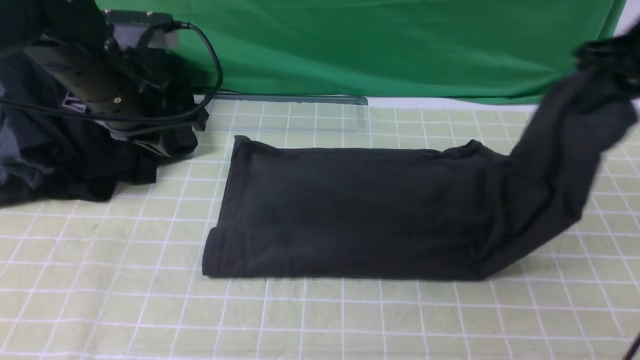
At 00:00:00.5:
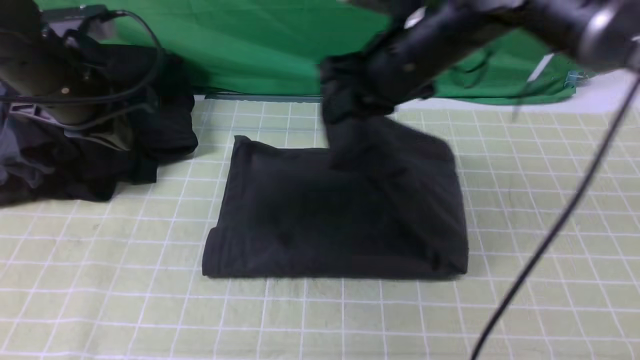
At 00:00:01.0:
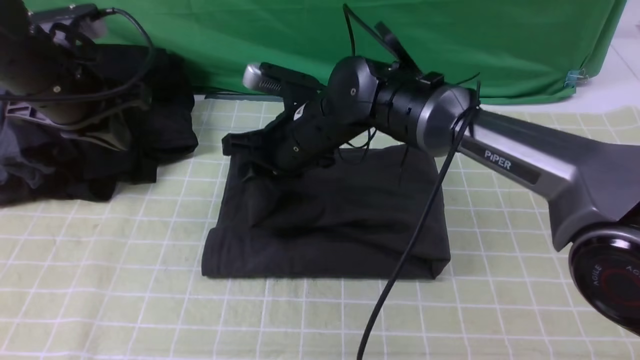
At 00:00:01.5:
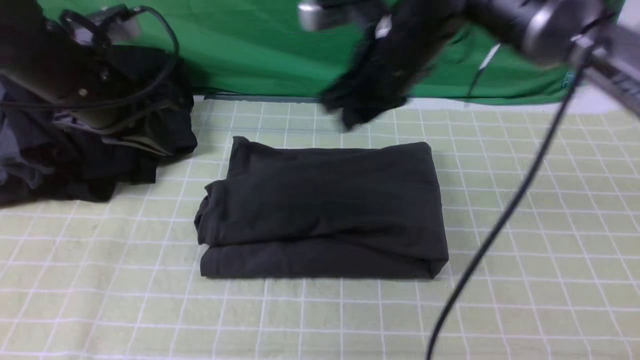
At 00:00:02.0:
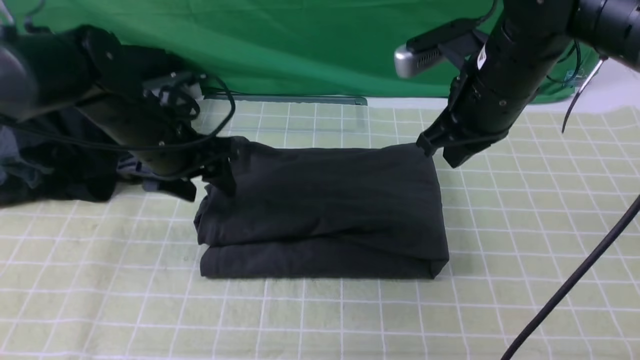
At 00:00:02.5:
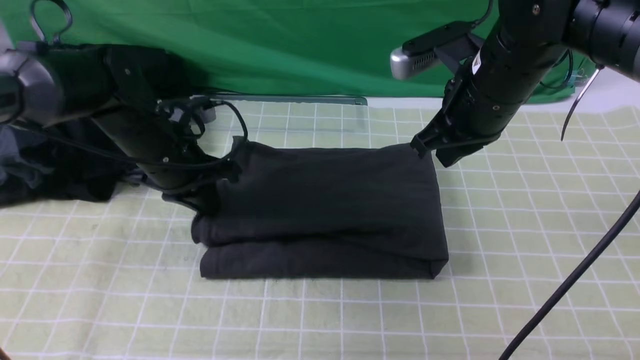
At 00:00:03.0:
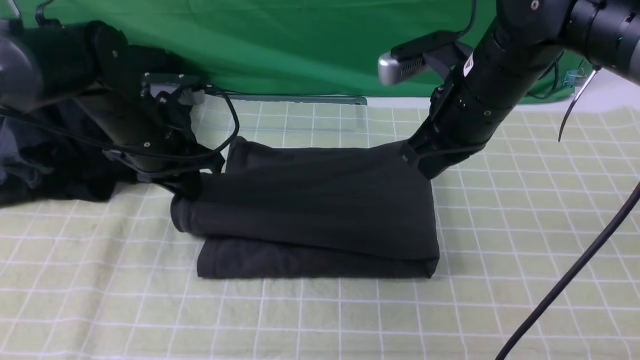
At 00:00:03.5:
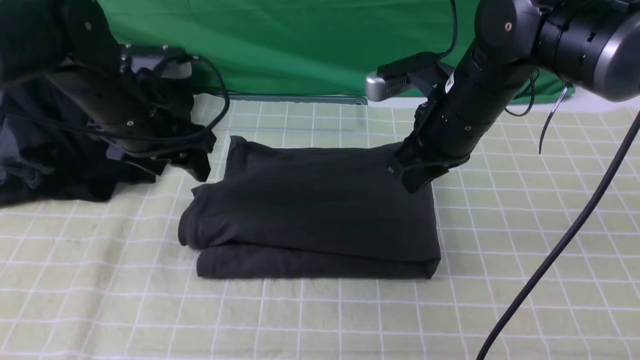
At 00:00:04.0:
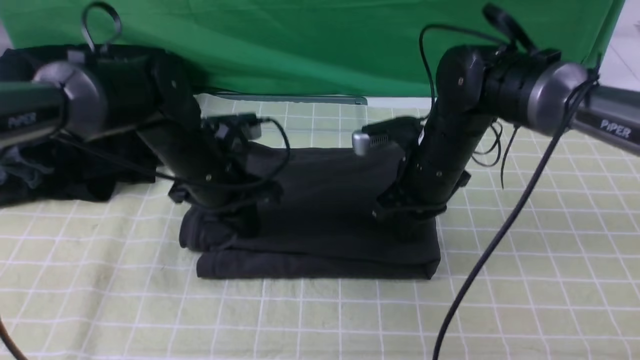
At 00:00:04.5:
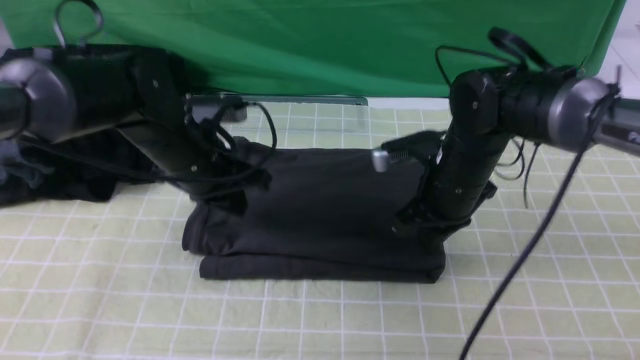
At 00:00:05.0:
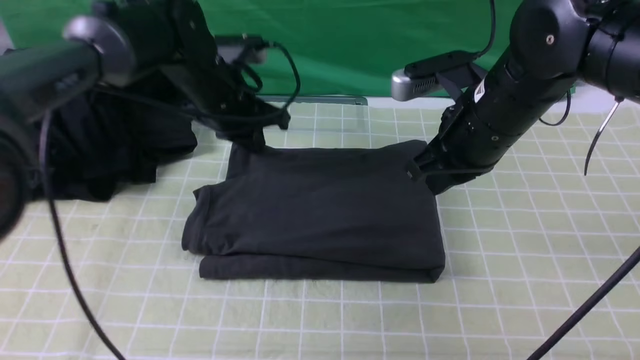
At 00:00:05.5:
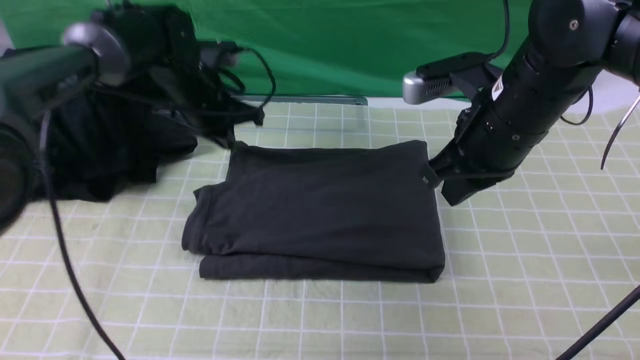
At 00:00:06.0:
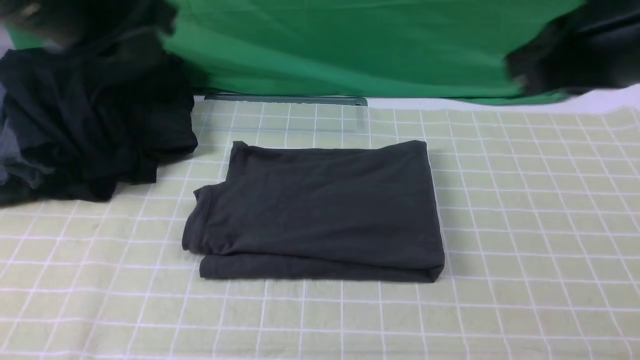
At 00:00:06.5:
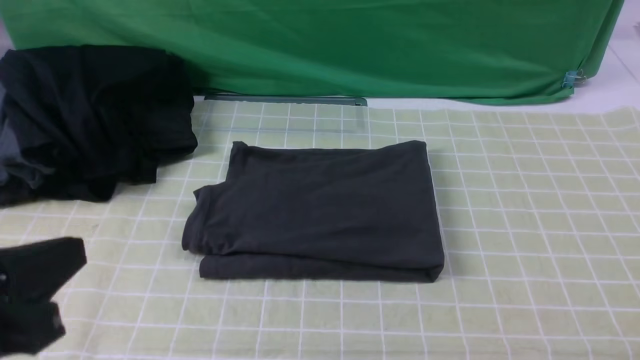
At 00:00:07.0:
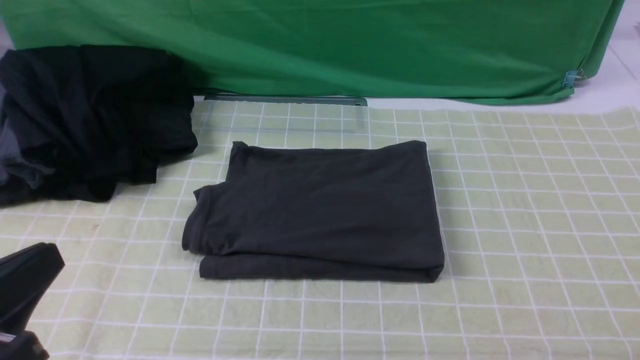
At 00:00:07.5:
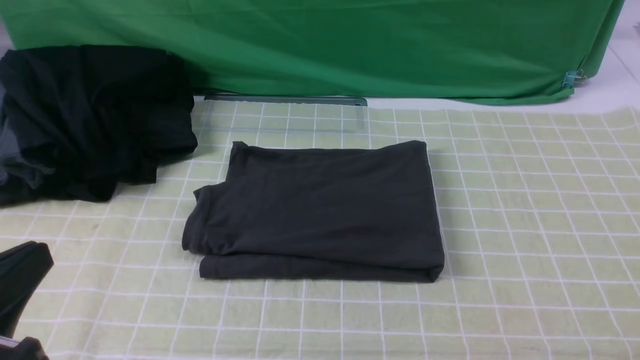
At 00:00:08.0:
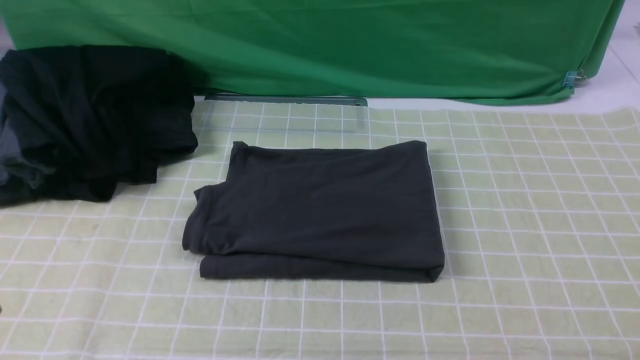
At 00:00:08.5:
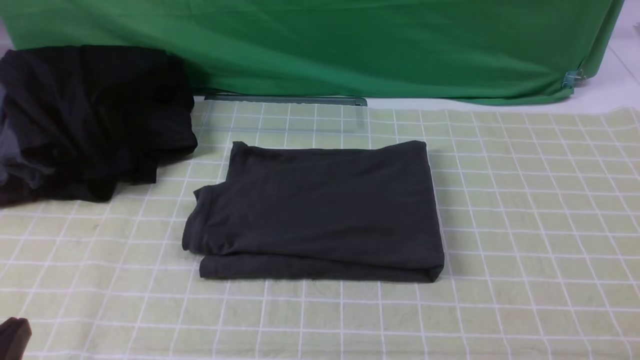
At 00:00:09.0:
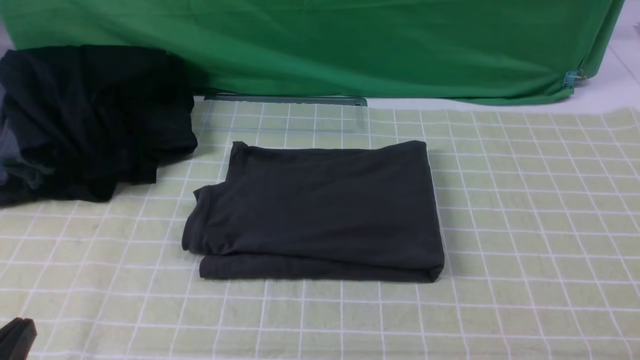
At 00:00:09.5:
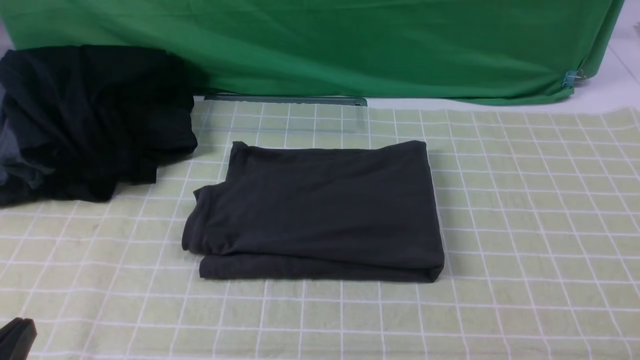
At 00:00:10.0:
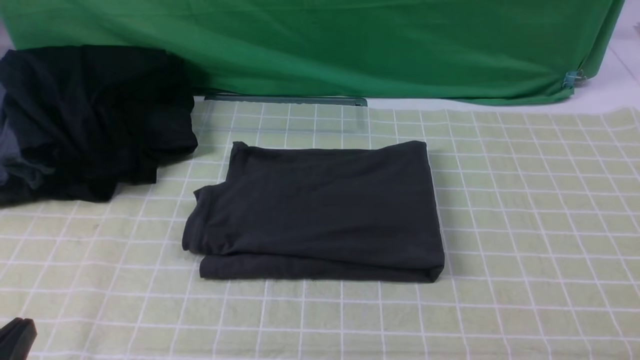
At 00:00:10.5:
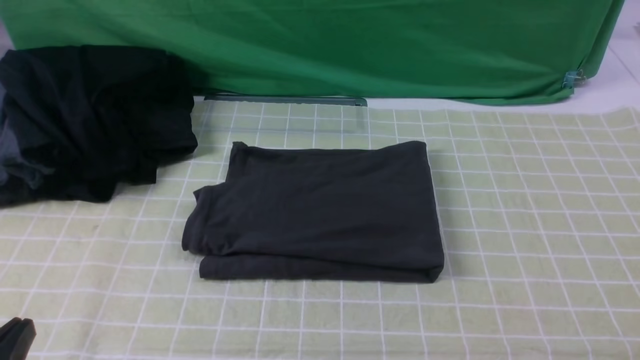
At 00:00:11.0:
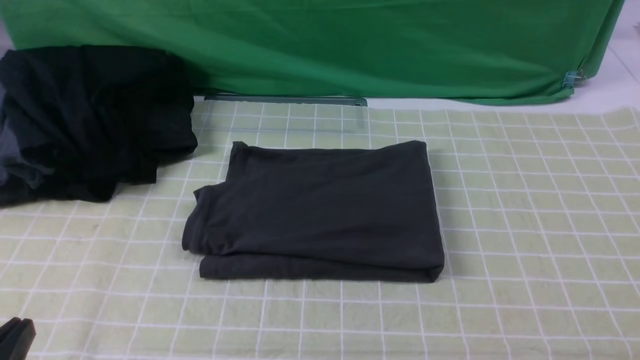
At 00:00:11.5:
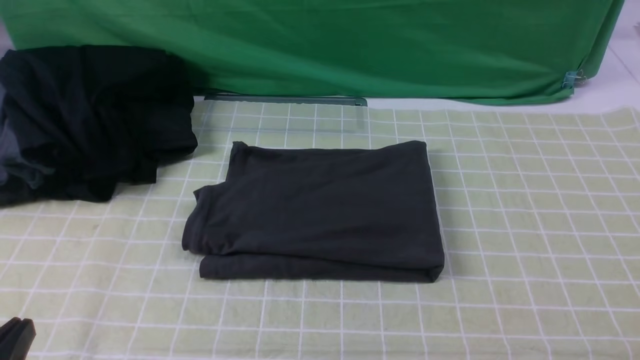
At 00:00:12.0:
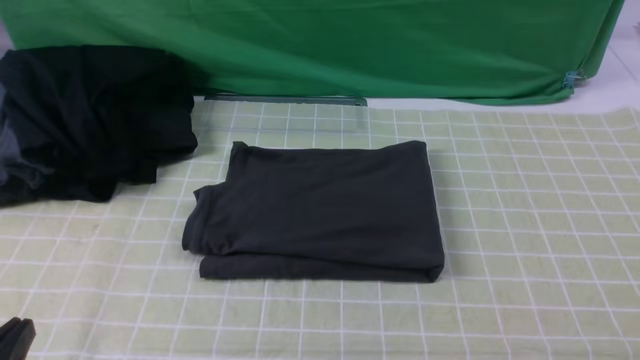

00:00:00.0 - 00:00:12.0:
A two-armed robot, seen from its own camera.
00:00:00.0 - 00:00:02.0: The left gripper is displaced downward by some 10 cm, and opens up. Meanwhile the right gripper is displaced to the left by about 15 cm, and opens, then closes once more.
00:00:02.0 - 00:00:04.0: The left gripper shifts by roughly 5 cm, and closes up, while the right gripper moves downward, some 10 cm.
00:00:04.0 - 00:00:06.0: The right gripper moves upward, backward and to the right, about 30 cm, while the left gripper shifts about 25 cm upward and backward.
00:00:06.0 - 00:00:08.0: The left gripper moves backward and downward, about 30 cm. The right gripper heads backward, to the right and downward, covering some 20 cm.

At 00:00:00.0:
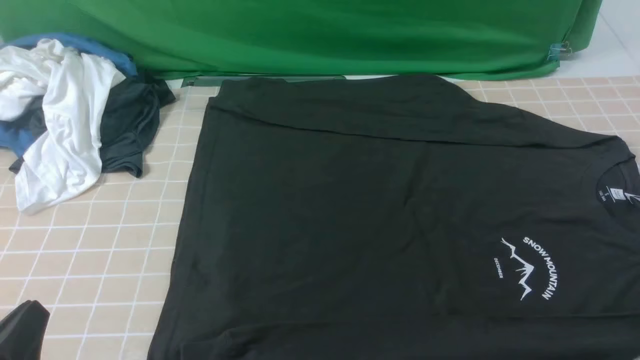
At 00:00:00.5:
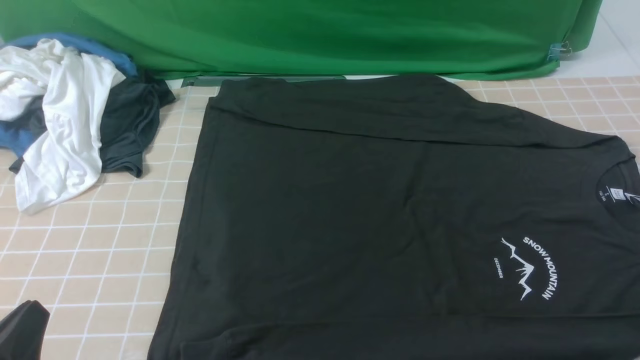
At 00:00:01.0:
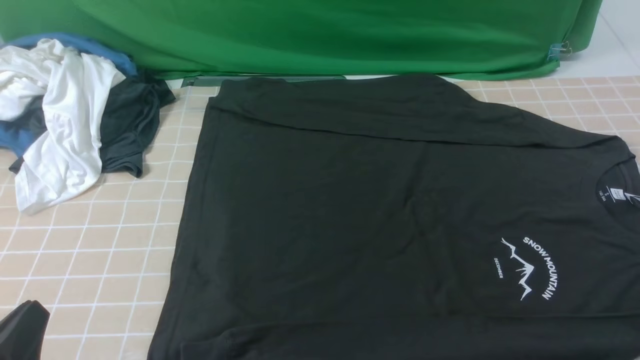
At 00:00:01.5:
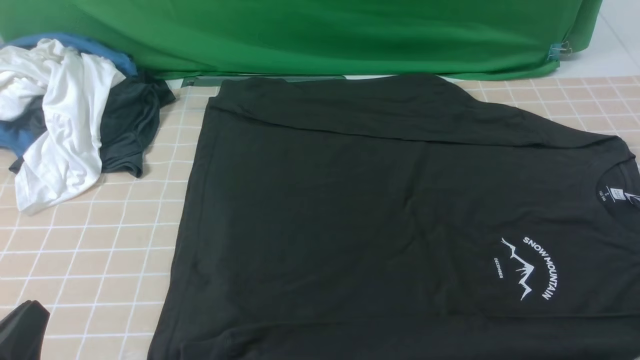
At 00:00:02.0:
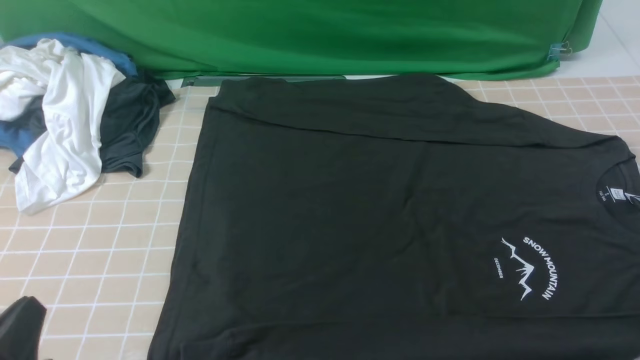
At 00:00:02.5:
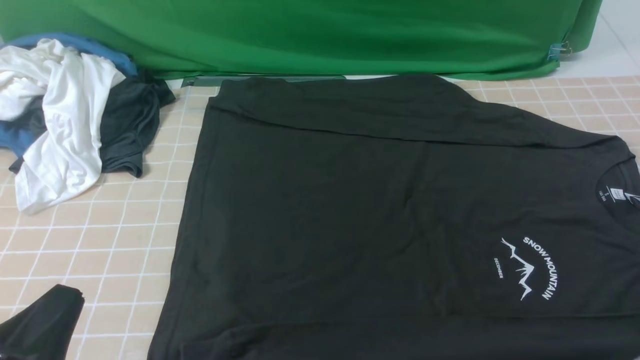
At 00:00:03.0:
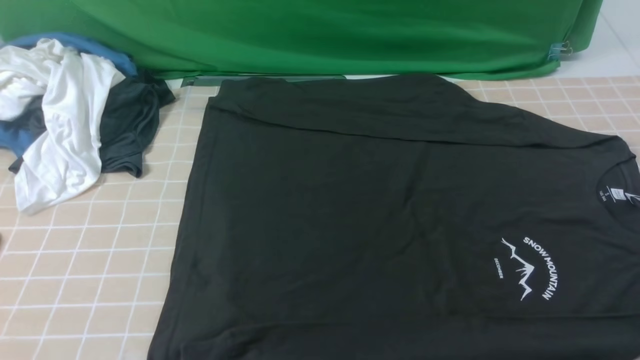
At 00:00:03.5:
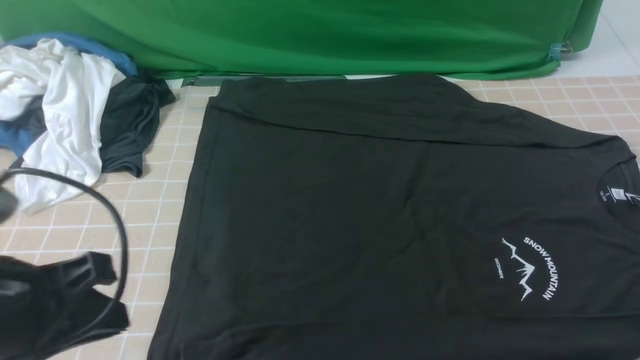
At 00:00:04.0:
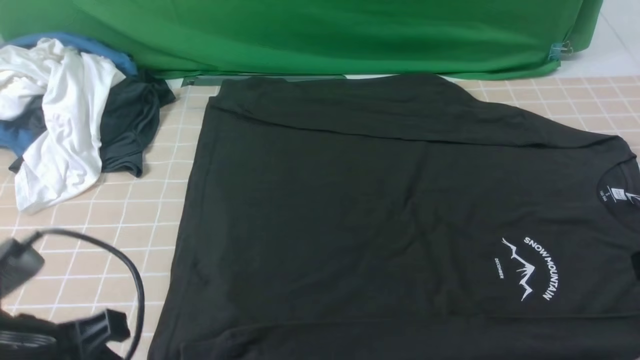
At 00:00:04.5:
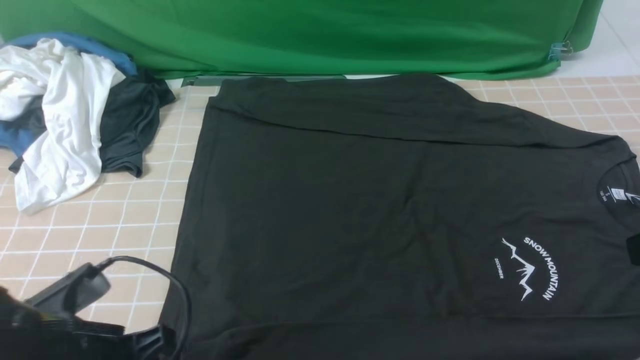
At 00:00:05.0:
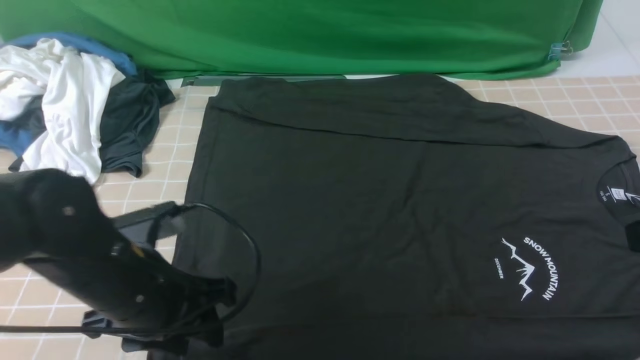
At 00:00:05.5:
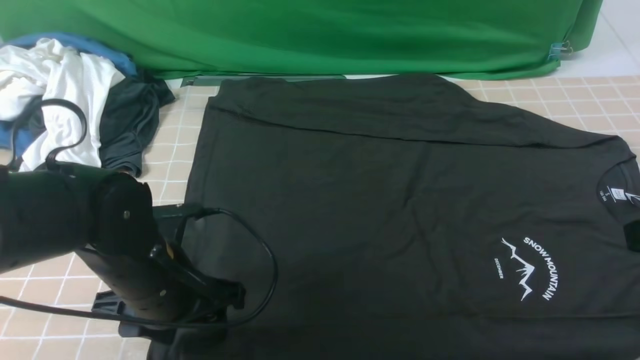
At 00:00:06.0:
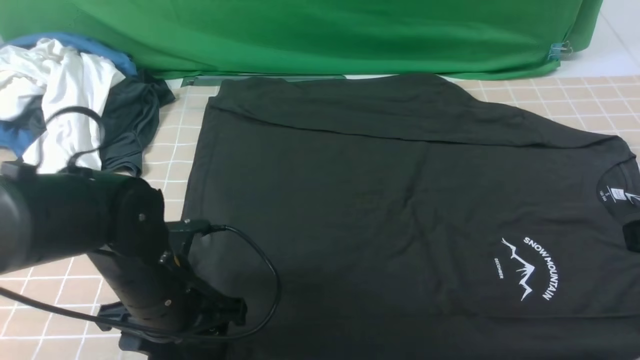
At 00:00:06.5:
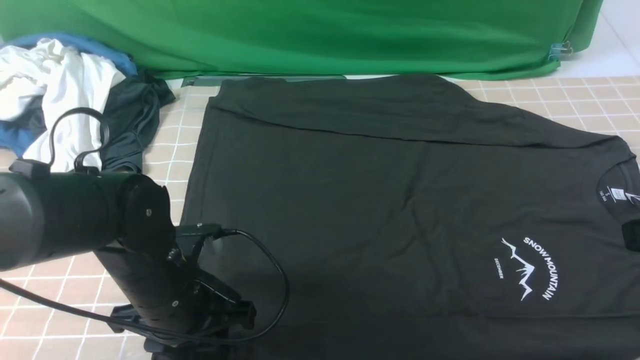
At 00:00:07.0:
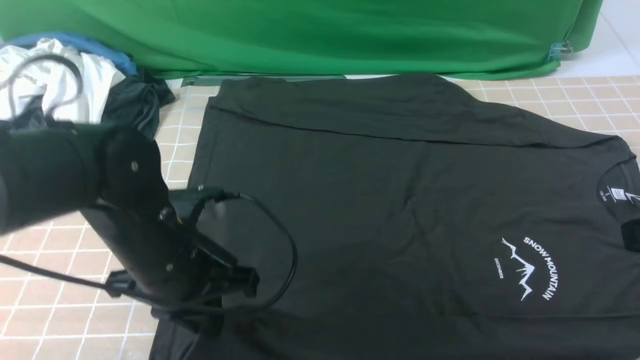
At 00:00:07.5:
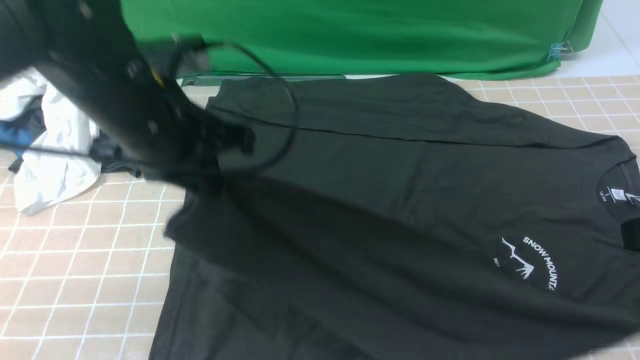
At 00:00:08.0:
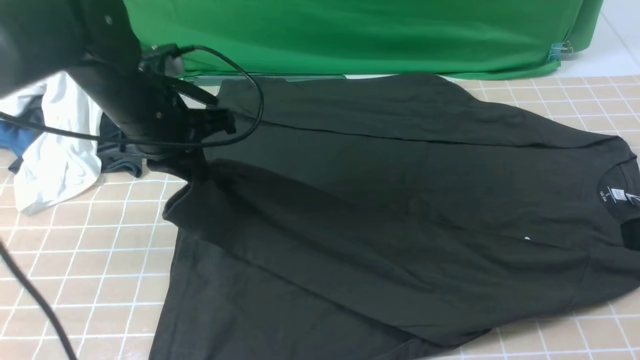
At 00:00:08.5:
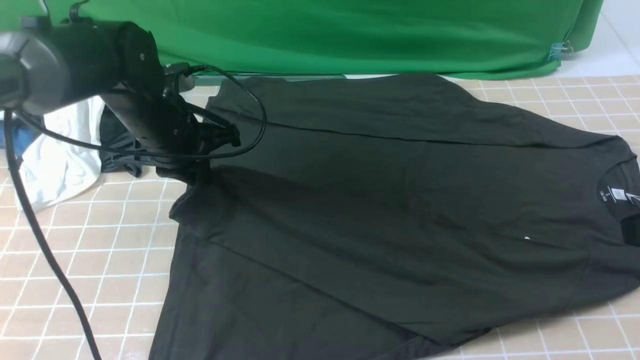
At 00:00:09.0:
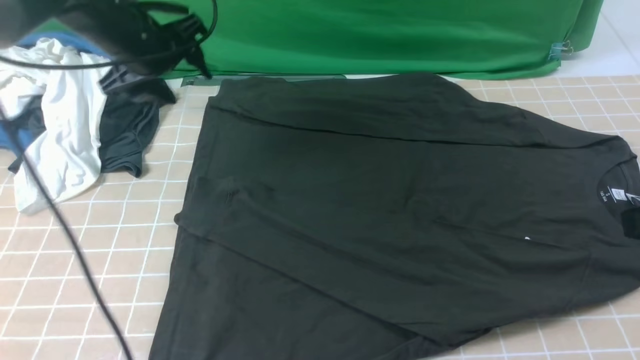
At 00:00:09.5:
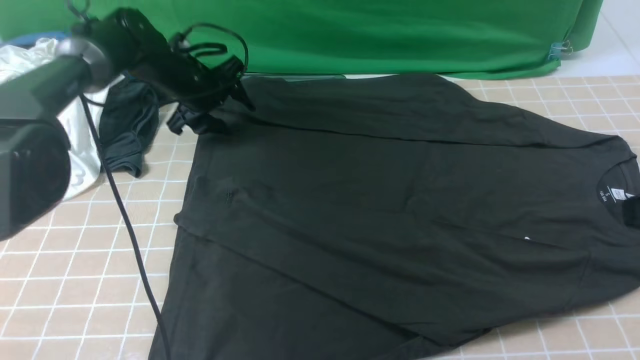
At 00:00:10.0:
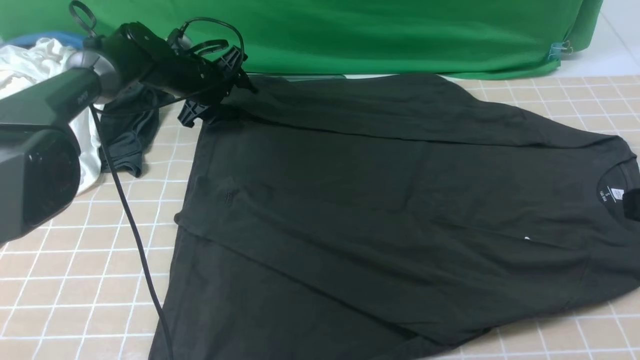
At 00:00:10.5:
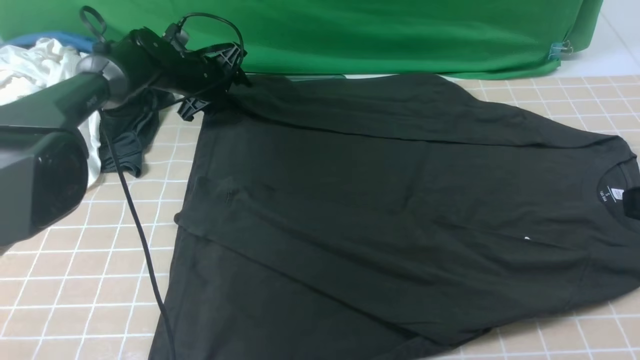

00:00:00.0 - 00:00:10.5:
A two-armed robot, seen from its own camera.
Step, 00:00:00.0 - 00:00:06.5: use the left arm to clamp the cuff closest to it.
Step, 00:00:07.0 - 00:00:08.5: use the left arm to drag and place the cuff at the centered position on the left edge of the fabric.
00:00:02.0 - 00:00:04.0: The left gripper shifts roughly 10 cm forward and upward.
00:00:04.0 - 00:00:06.5: The left gripper heads forward, downward and to the right, covering roughly 15 cm, and opens and closes again.
00:00:06.5 - 00:00:08.5: The left gripper goes roughly 15 cm forward.
00:00:08.5 - 00:00:10.5: The left gripper moves forward and downward, roughly 20 cm.
